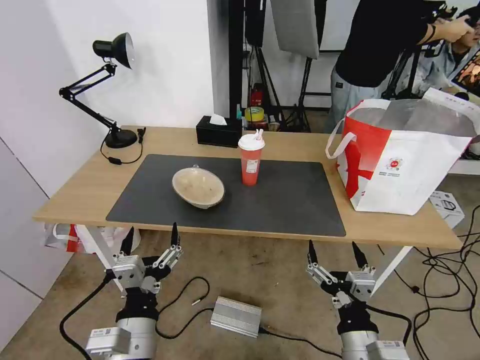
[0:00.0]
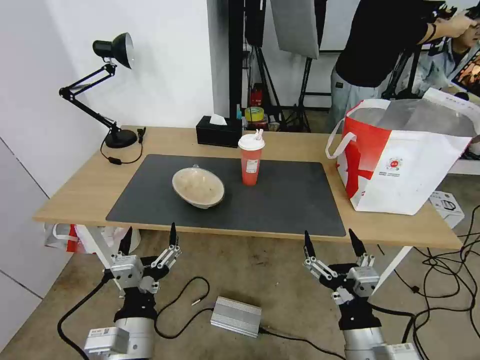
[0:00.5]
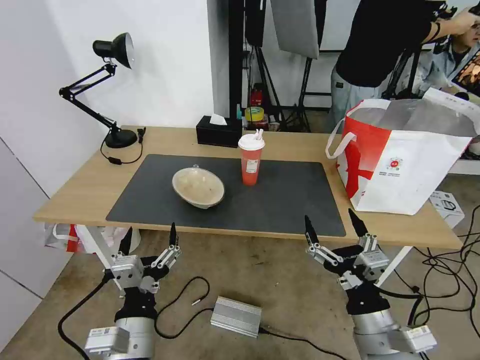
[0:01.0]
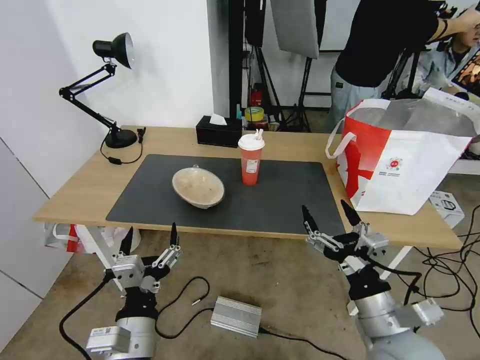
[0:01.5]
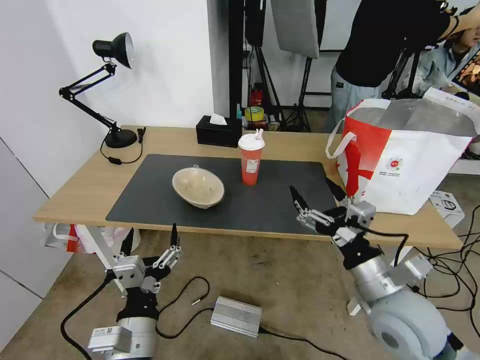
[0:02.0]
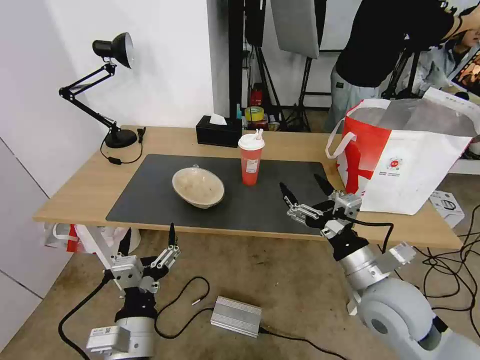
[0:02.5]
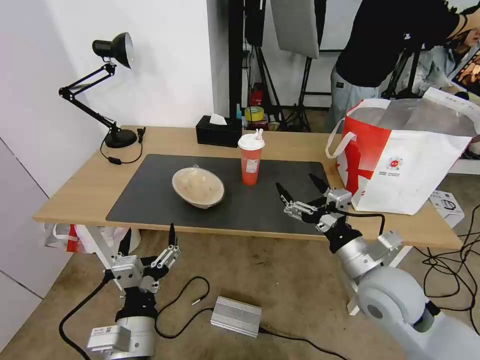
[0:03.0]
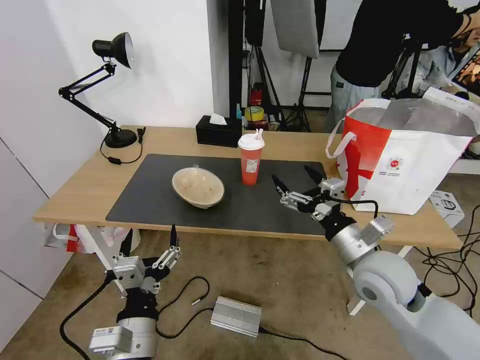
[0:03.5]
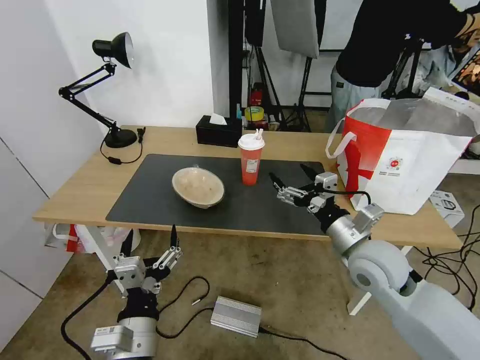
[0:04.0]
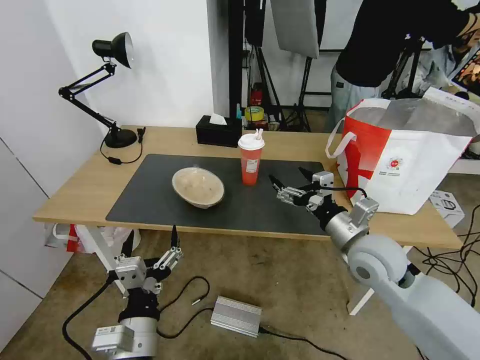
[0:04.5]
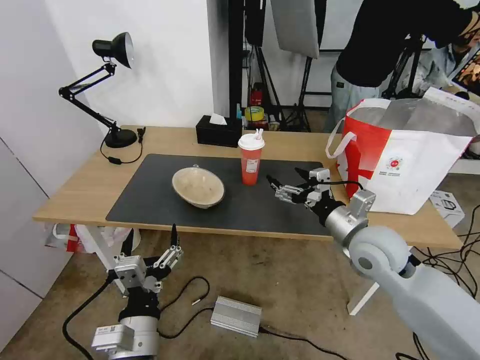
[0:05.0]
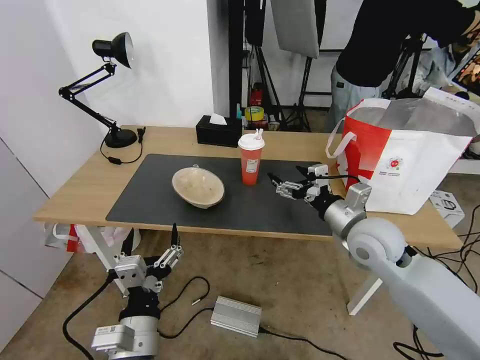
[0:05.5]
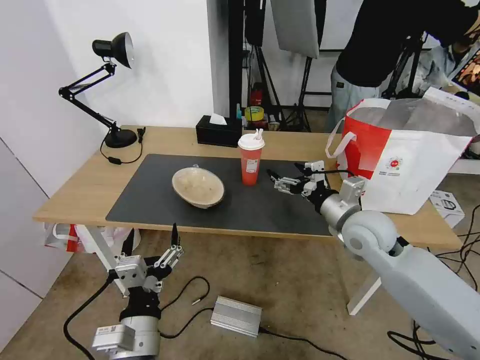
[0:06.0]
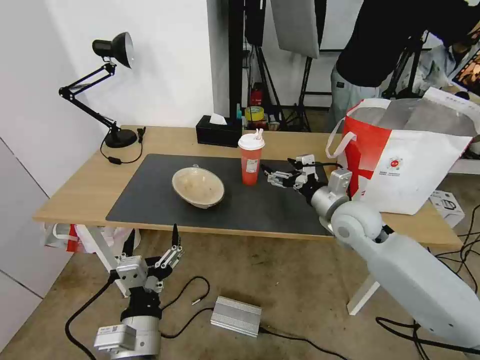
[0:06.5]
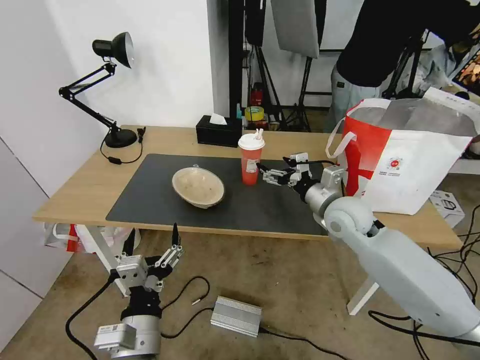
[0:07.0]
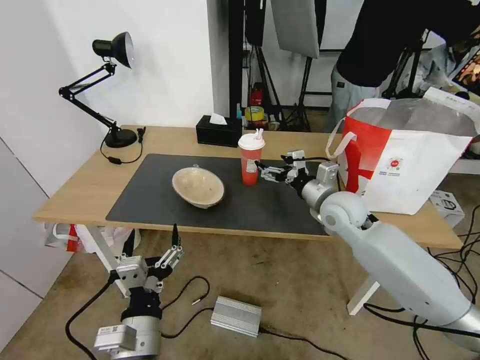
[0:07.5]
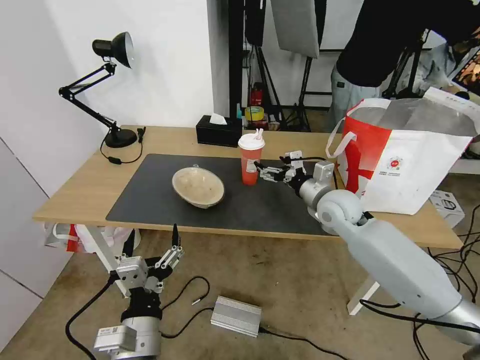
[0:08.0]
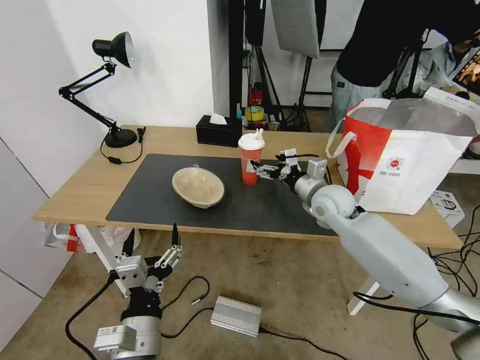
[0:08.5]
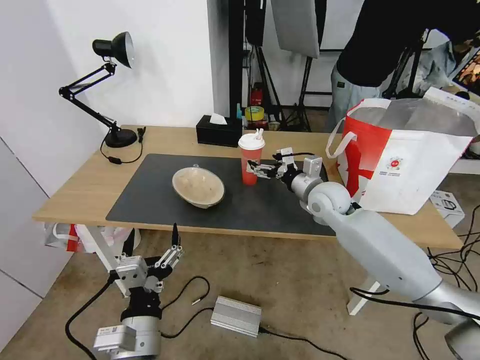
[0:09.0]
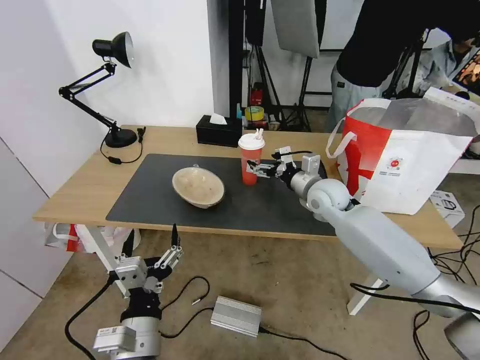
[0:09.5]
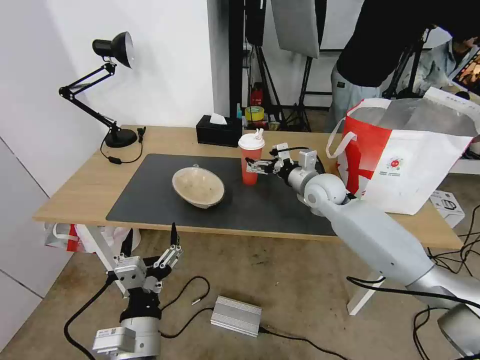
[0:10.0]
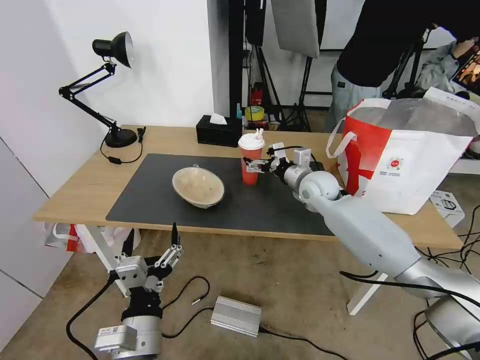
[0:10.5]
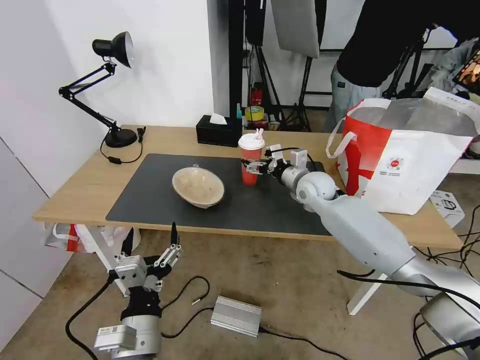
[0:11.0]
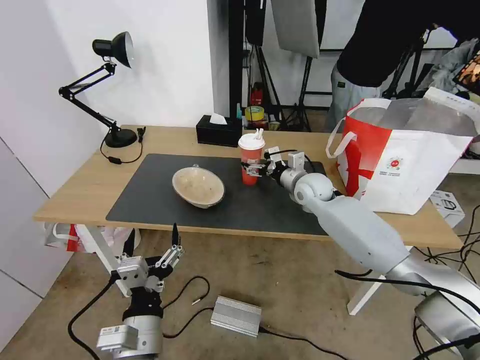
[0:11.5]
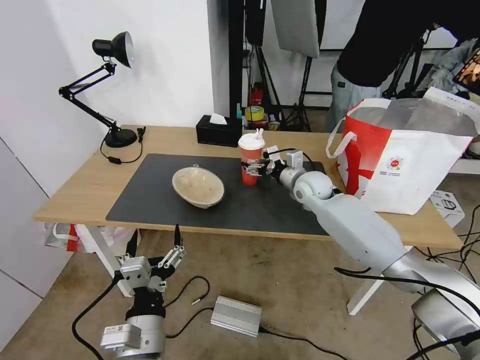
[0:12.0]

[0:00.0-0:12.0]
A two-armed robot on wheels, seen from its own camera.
Task of the whole recording: Pick up the trash from the table and place it into the takeout bag.
0:00.0 to 0:02.0: The right gripper is displaced forward, upward and to the right by roughly 15 cm.
0:02.0 to 0:04.0: The right gripper heads forward, covering approximately 10 cm.
0:04.0 to 0:06.0: The right gripper heads forward, covering roughly 5 cm.
0:06.0 to 0:08.0: The right gripper heads forward, covering about 10 cm.
0:08.0 to 0:10.0: The right gripper is displaced forward by roughly 5 cm.
0:10.0 to 0:12.0: The grippers stay close to where they were, moving slightly.

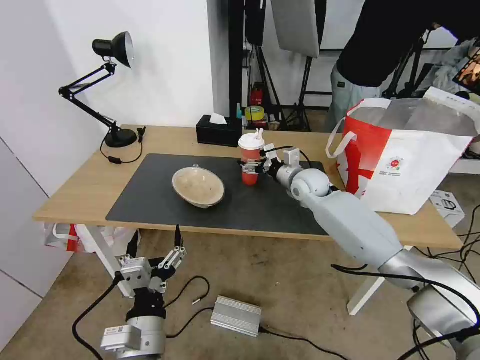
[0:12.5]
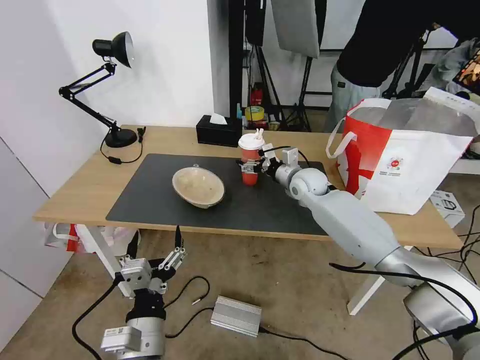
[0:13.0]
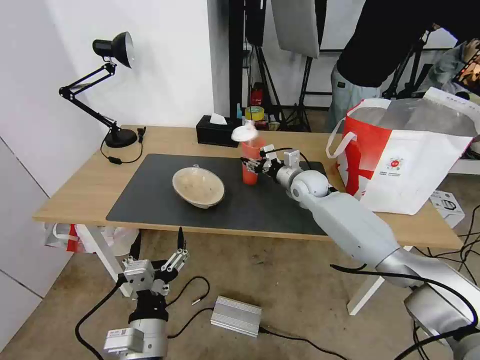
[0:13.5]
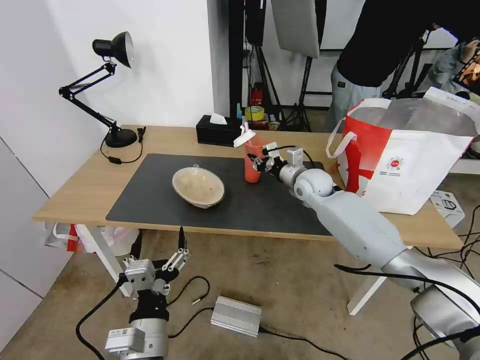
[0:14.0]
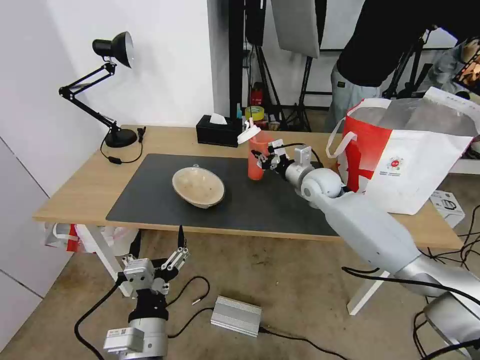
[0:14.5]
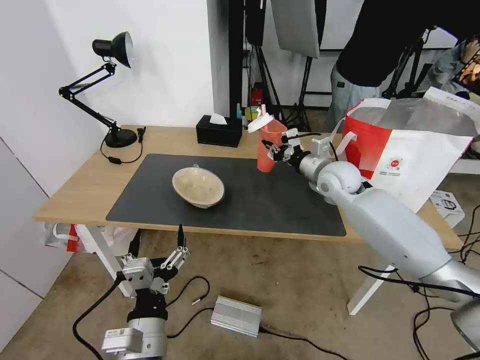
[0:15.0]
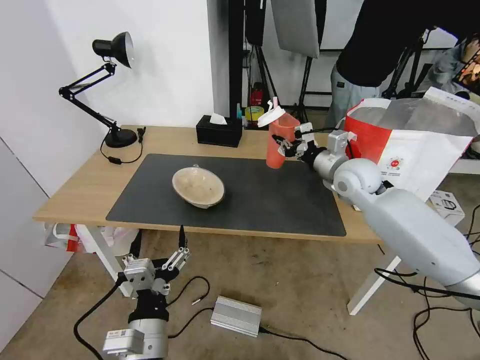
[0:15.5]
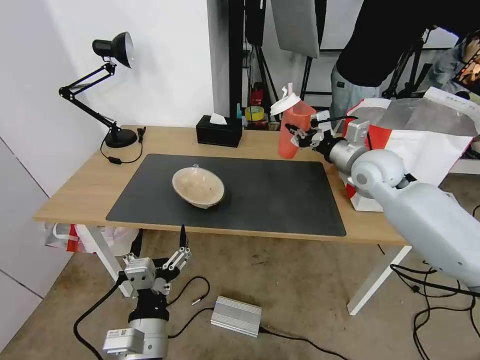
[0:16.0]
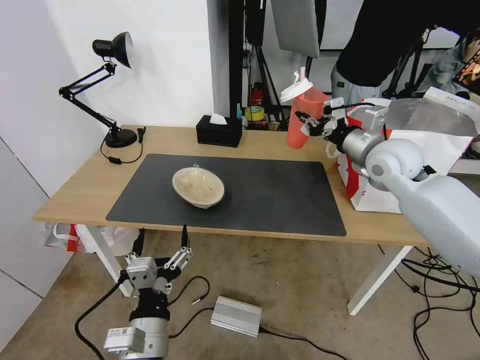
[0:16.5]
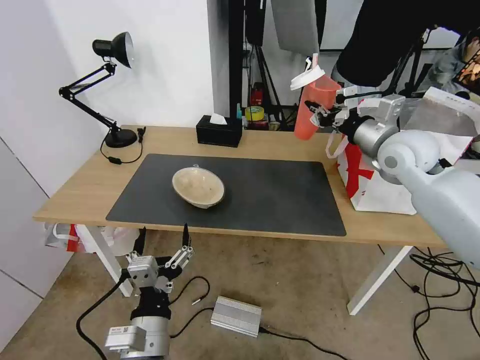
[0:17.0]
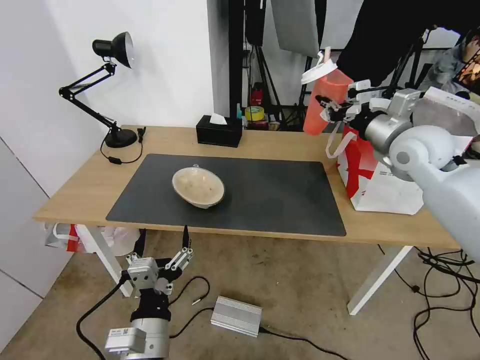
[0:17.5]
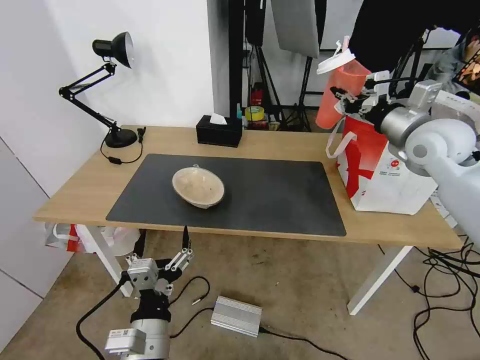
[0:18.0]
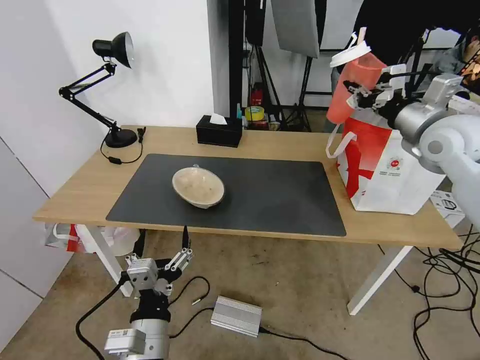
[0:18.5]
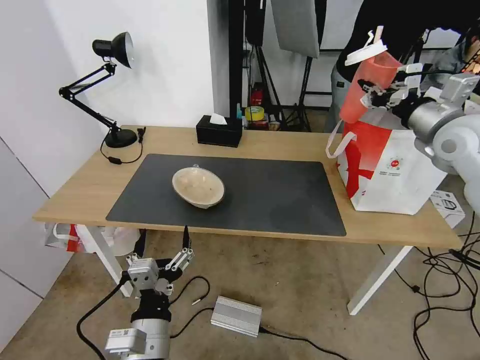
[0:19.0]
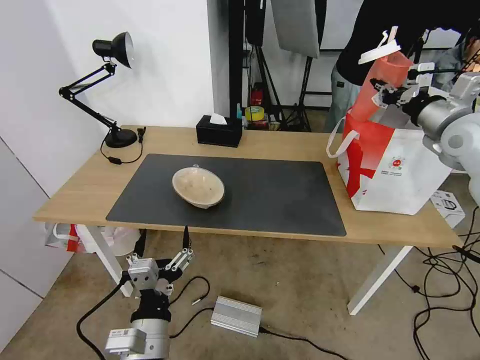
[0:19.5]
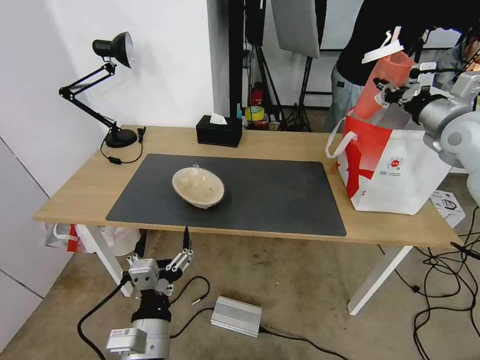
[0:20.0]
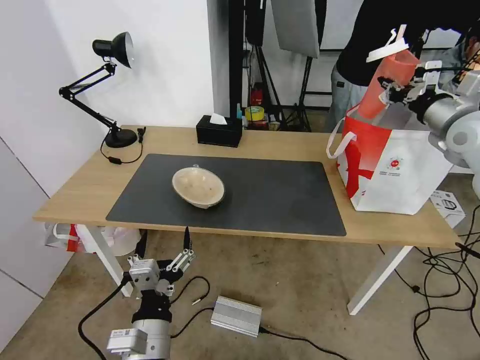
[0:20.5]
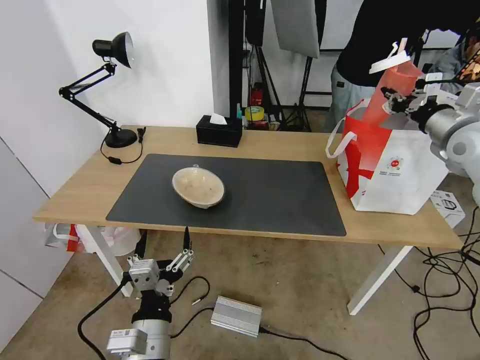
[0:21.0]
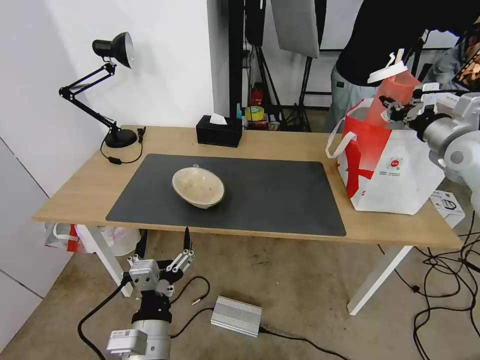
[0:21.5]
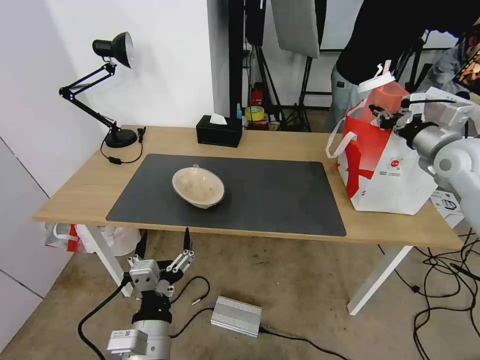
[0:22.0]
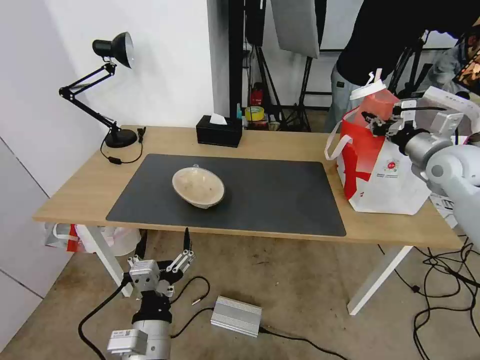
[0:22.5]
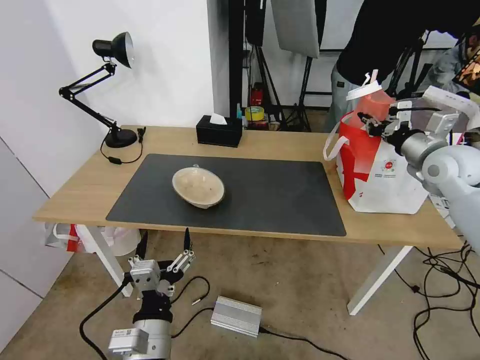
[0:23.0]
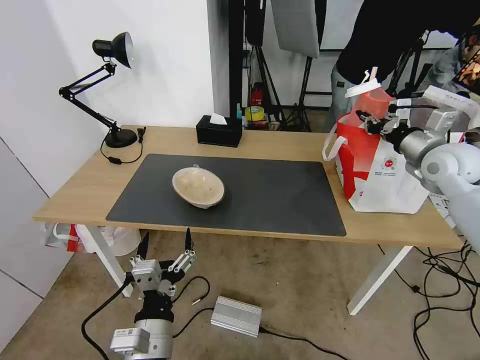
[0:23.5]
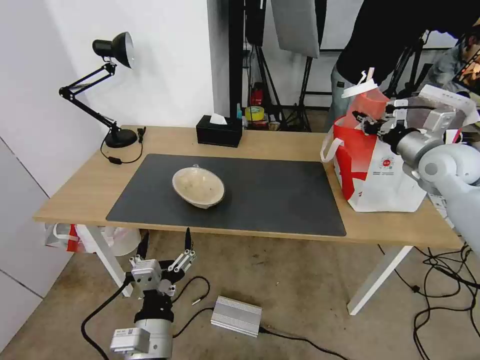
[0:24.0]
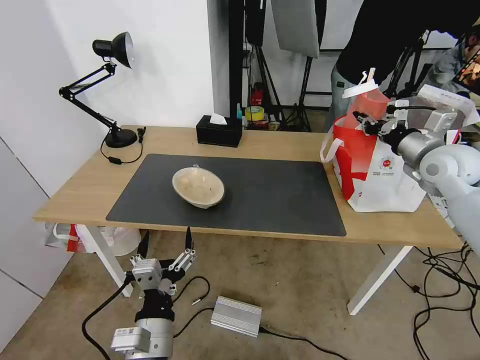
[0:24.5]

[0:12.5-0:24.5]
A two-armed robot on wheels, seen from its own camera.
Task of the whole recording: Pick up the trash from the table and place it into the takeout bag.
0:12.5 to 0:14.5: The right gripper closes its fingers.
0:14.5 to 0:16.5: The right gripper goes approximately 15 cm upward, to the right and backward.
0:16.5 to 0:18.5: The right gripper travels to the right and upward by roughly 10 cm.
0:18.5 to 0:20.5: The right gripper shifts about 5 cm to the right.
0:20.5 to 0:22.5: The right gripper heads downward, covering roughly 5 cm.
0:22.5 to 0:24.5: The grippers move only a little.

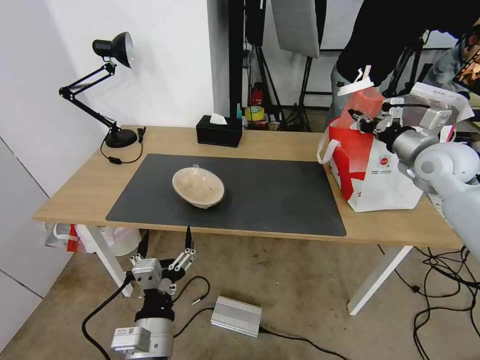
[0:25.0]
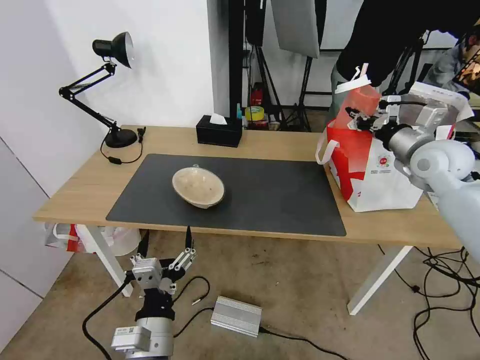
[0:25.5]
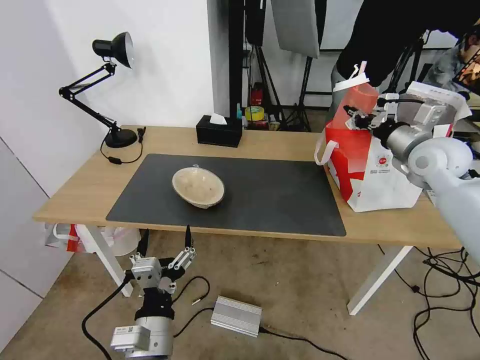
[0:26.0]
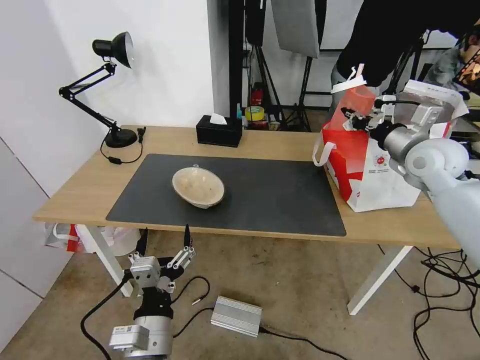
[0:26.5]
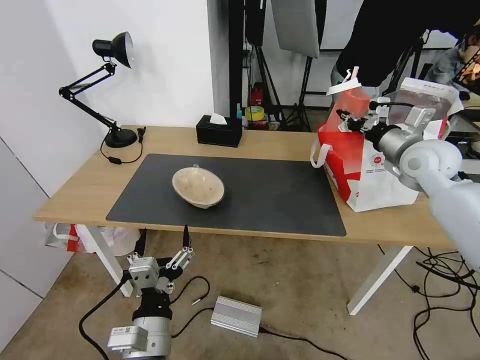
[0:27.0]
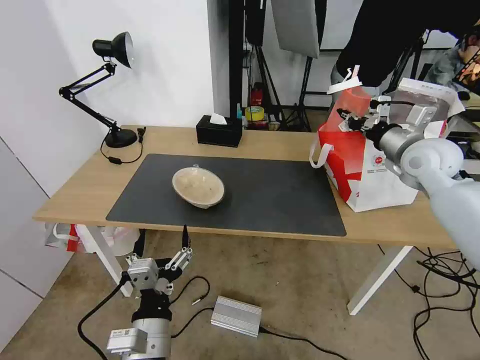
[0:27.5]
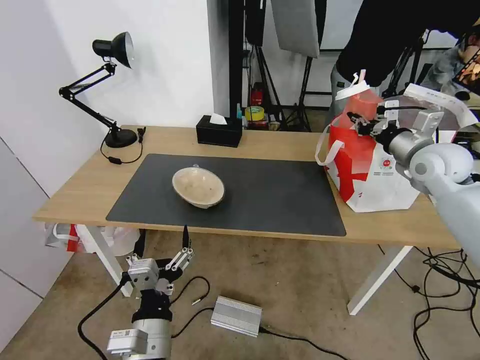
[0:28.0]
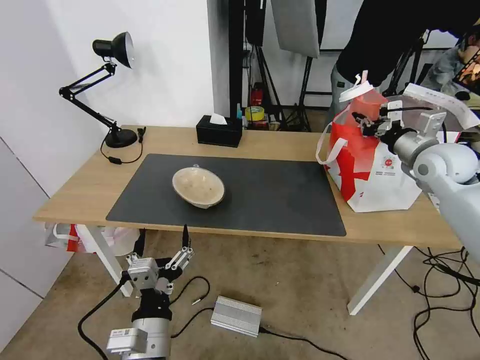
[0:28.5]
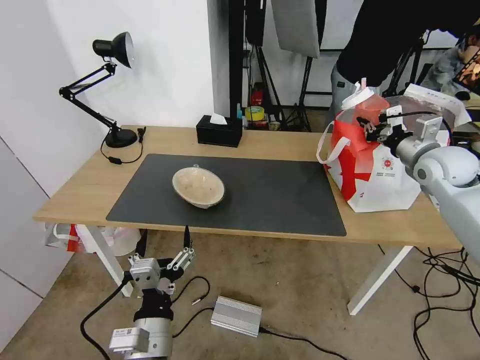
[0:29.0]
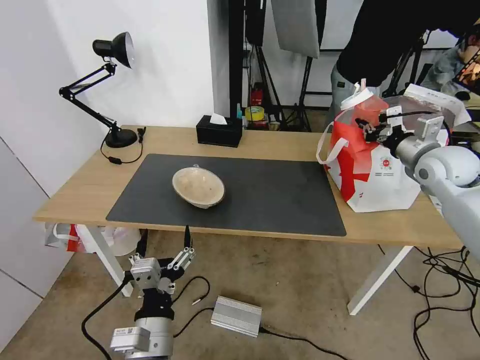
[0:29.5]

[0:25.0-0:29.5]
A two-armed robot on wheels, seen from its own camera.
Task of the whole recording: Pick up the trash from the table and place it into the takeout bag.
0:25.0 to 0:27.0: There are only small adjustments of the grippers.
